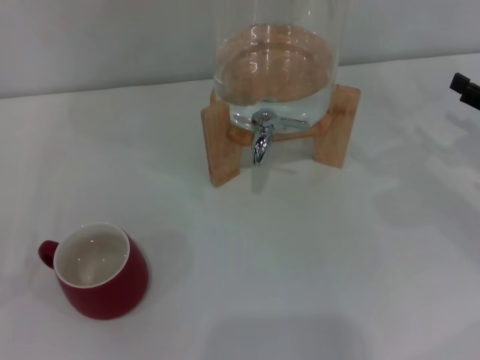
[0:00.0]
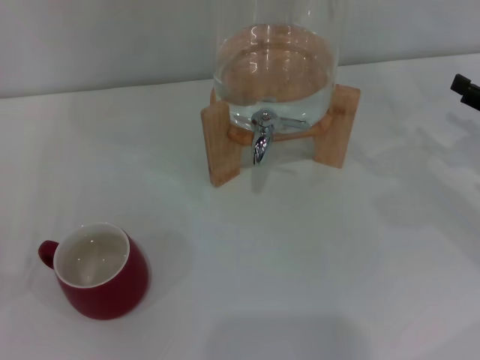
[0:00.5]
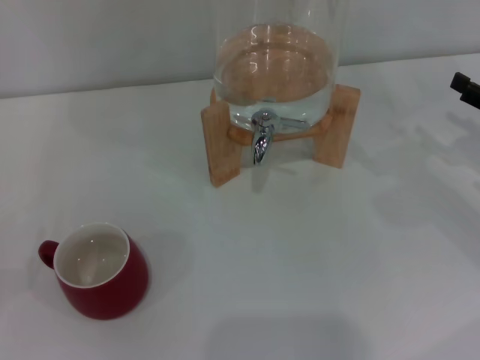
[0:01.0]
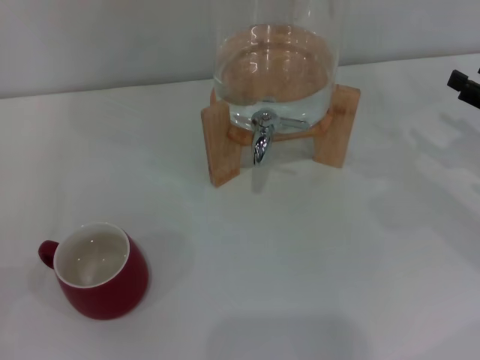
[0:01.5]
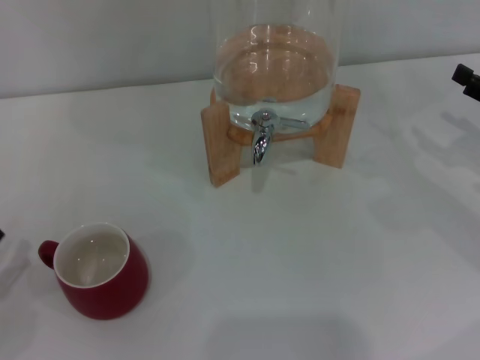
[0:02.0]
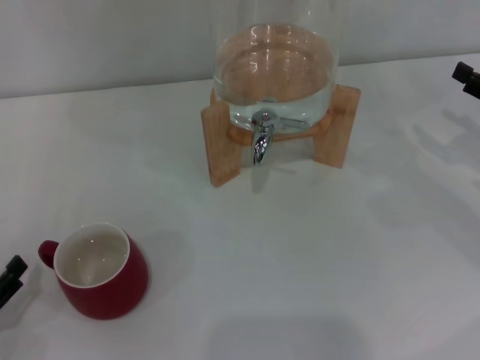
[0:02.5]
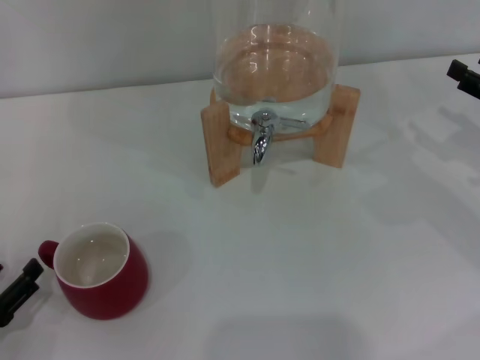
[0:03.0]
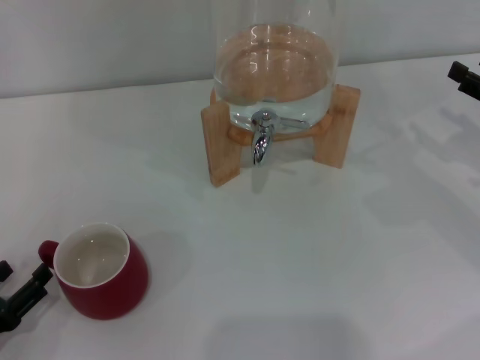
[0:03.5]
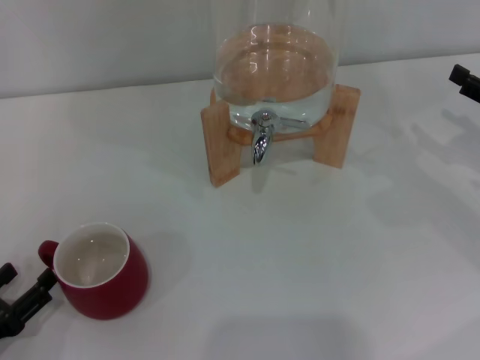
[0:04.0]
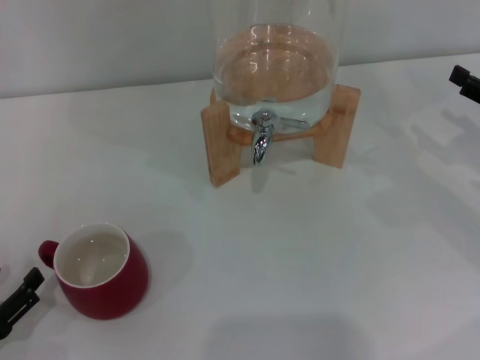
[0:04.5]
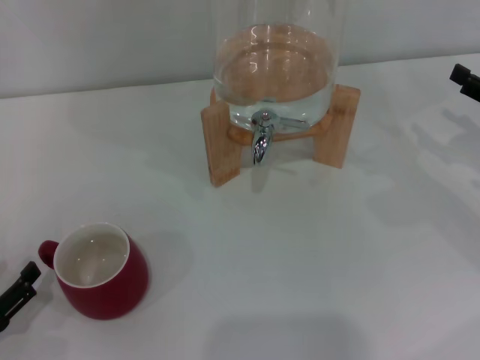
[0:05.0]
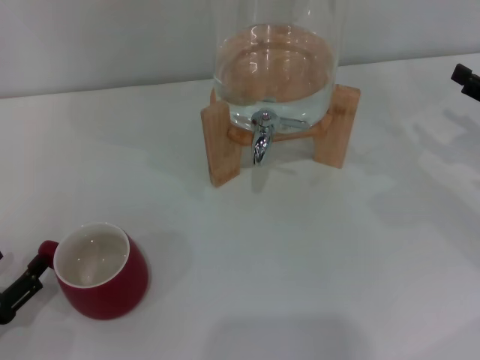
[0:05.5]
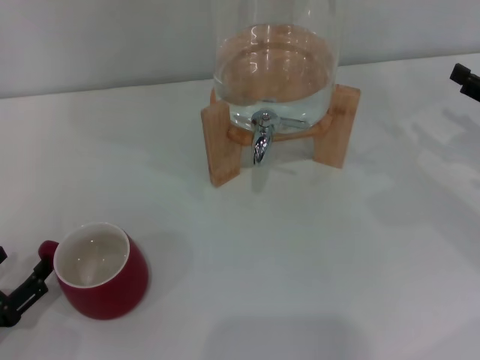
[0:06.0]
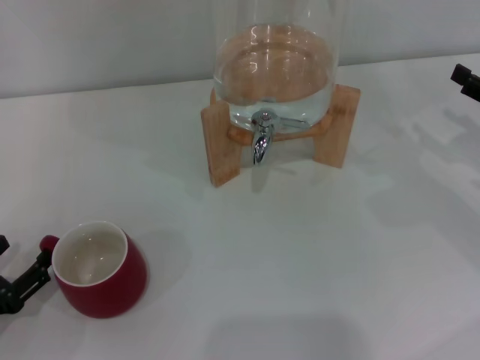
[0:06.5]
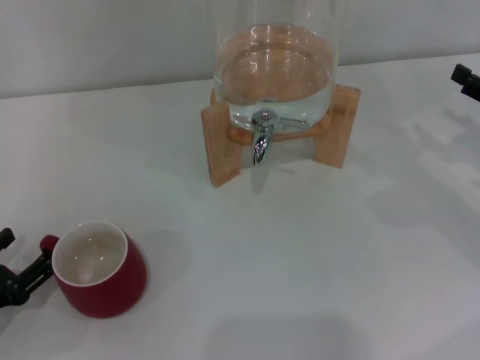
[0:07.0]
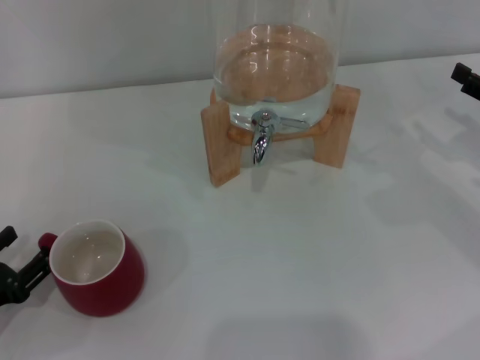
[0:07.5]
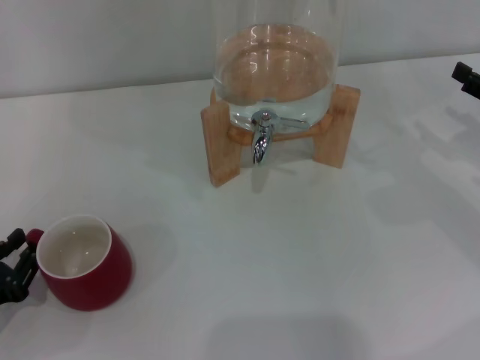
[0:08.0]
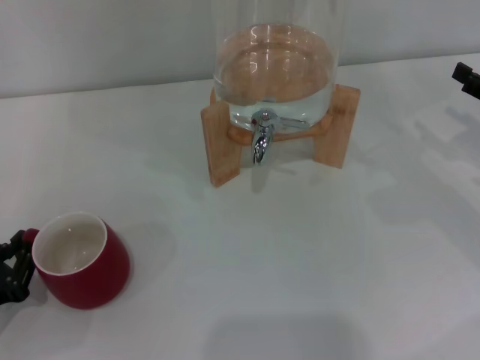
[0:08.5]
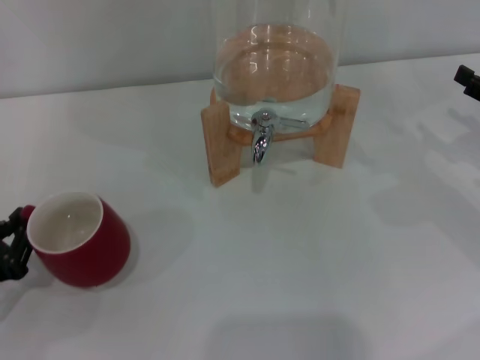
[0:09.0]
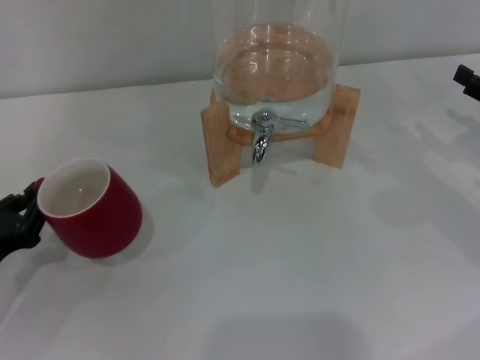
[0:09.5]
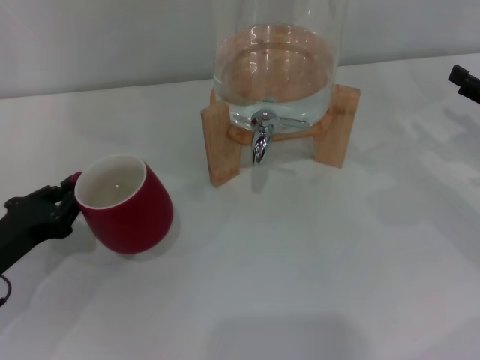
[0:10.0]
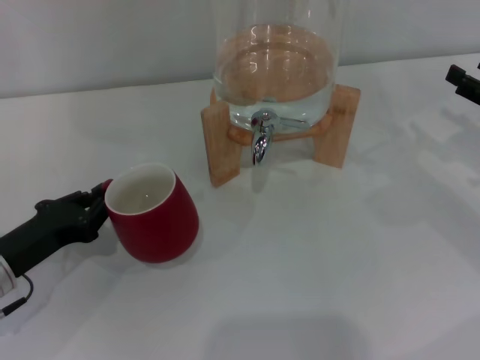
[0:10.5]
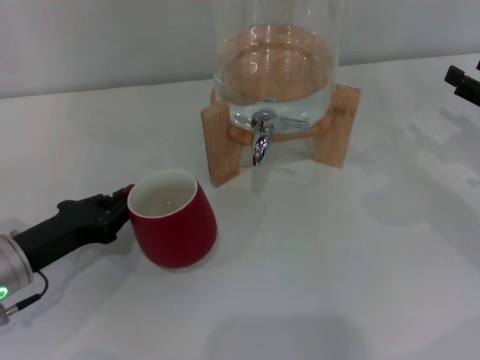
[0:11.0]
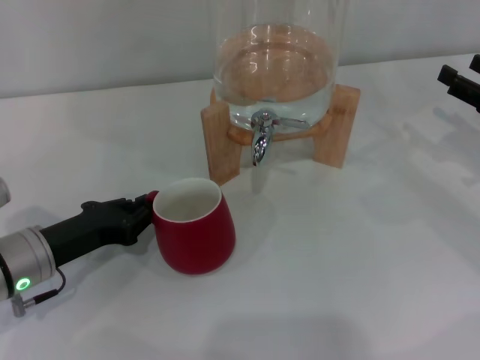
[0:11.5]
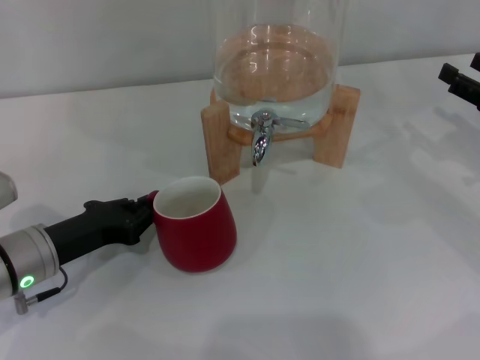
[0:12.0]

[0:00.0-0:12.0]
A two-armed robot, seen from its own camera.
Task of the whole recording: the left gripper pick up the red cup and place it horizontally under the faucet, the right gripper turn on the faucet to fill the cup, and then turn off the faucet.
0:02.0 to 0:04.0: The grippers move only a little.
0:04.0 to 0:06.0: There are only small adjustments of the grippers.
0:06.0 to 0:08.0: The left gripper closes up.
0:08.0 to 0:10.0: The left gripper goes about 5 cm forward, and closes its fingers.
0:10.0 to 0:12.0: The left gripper shifts some 5 cm to the right.

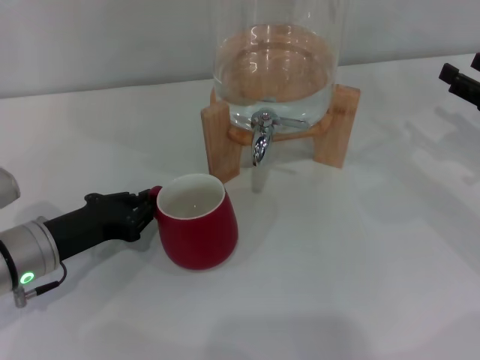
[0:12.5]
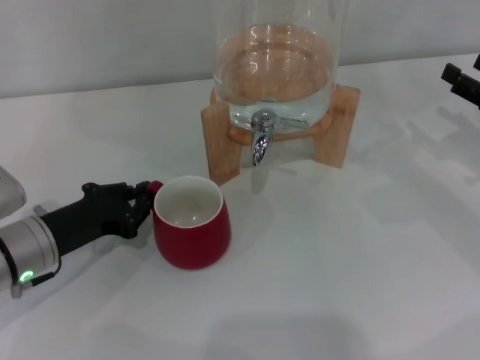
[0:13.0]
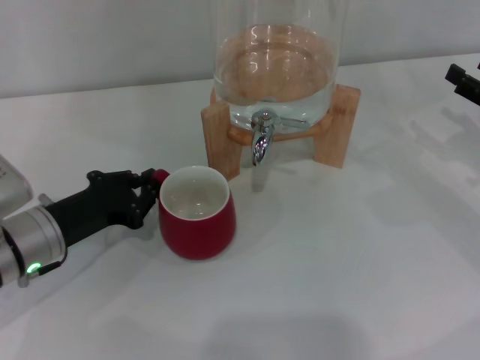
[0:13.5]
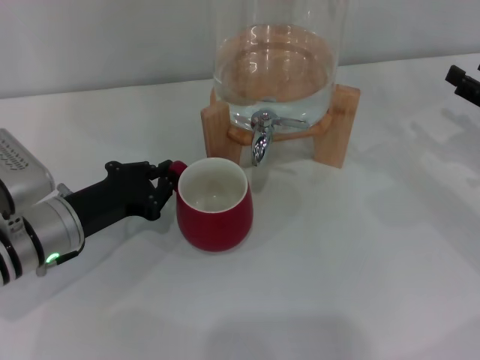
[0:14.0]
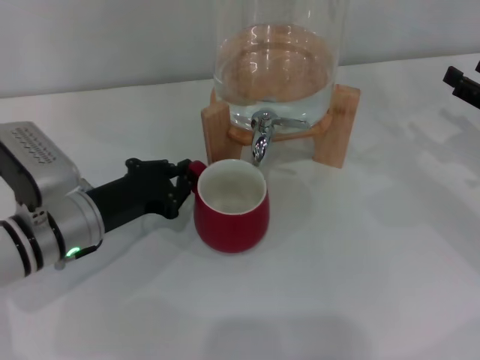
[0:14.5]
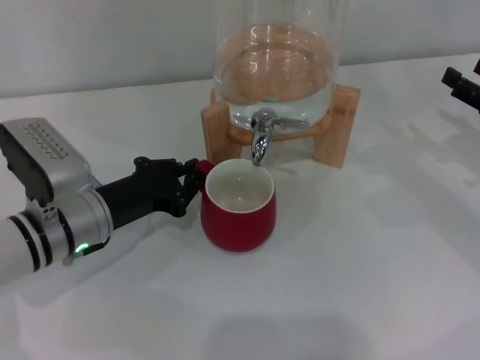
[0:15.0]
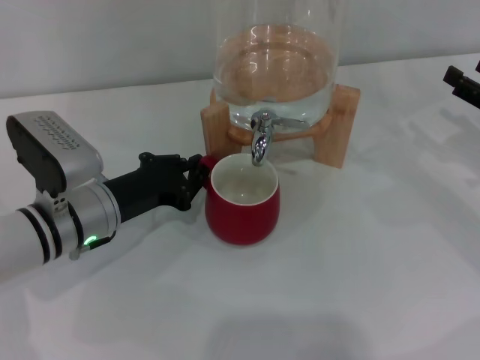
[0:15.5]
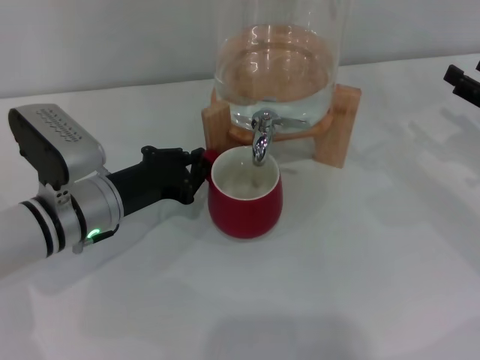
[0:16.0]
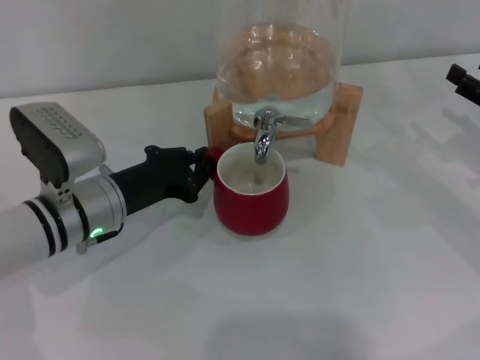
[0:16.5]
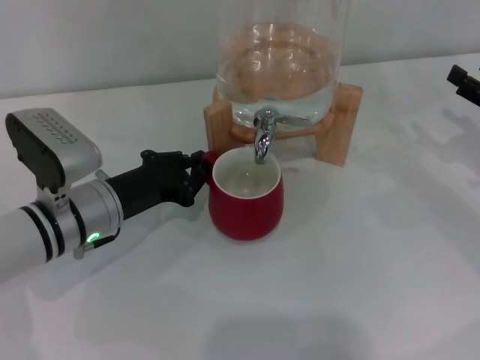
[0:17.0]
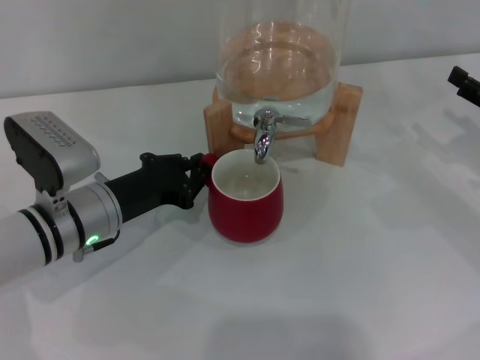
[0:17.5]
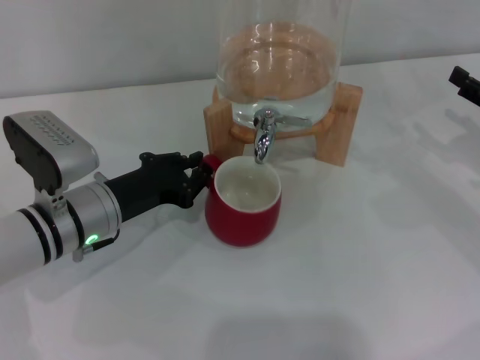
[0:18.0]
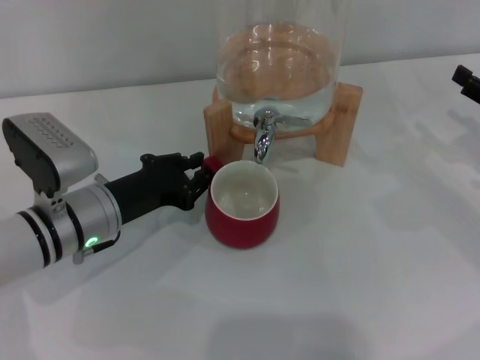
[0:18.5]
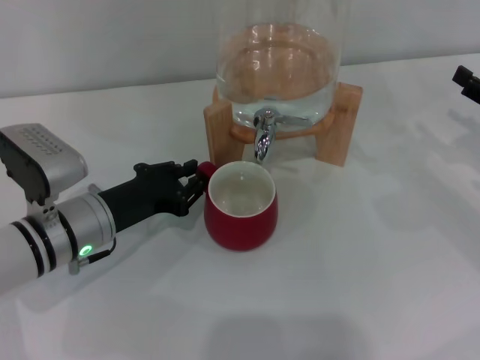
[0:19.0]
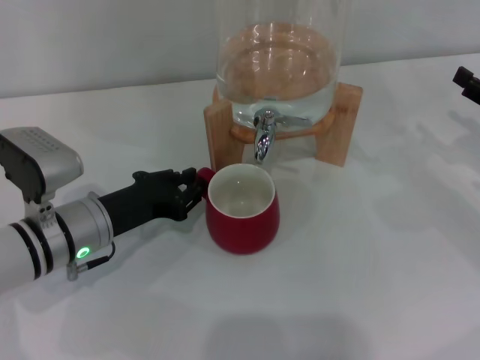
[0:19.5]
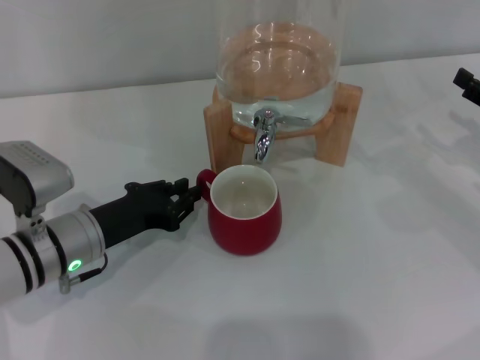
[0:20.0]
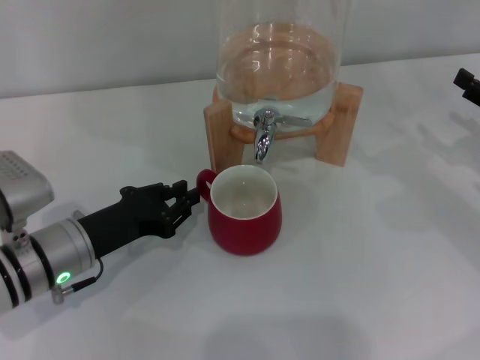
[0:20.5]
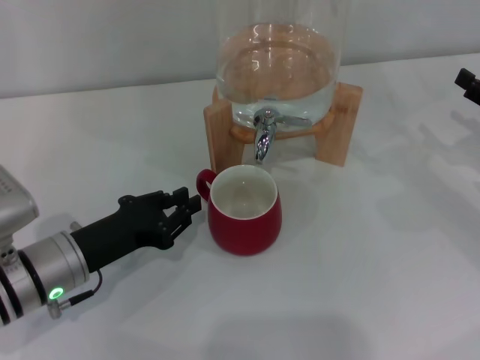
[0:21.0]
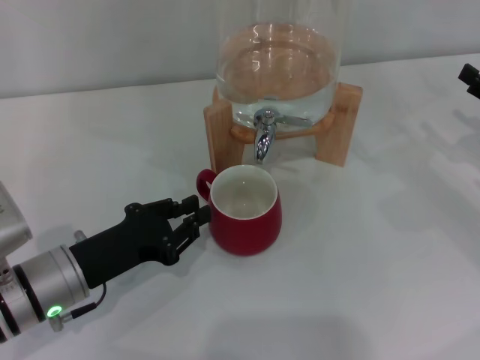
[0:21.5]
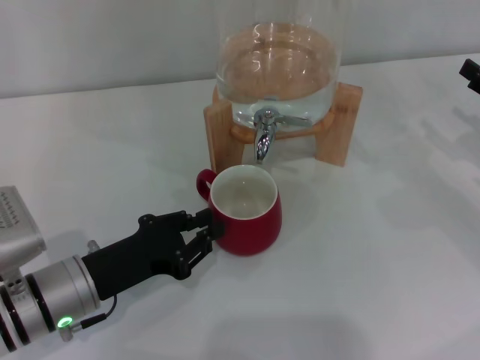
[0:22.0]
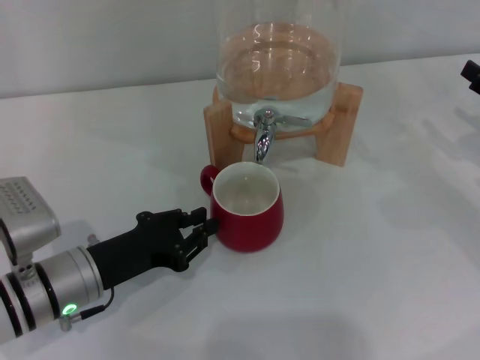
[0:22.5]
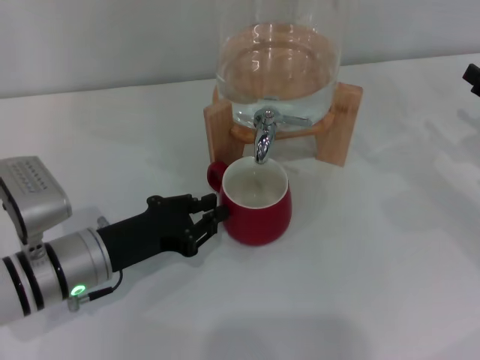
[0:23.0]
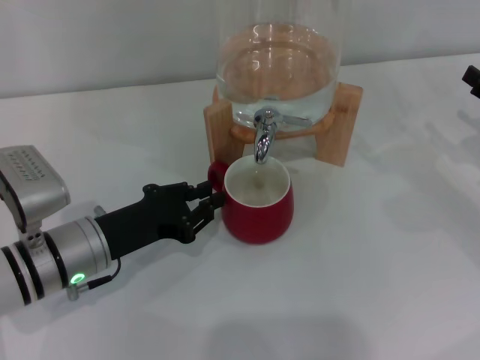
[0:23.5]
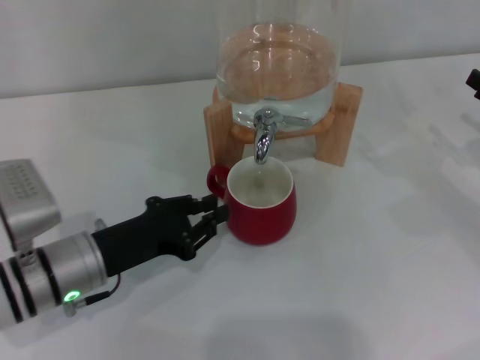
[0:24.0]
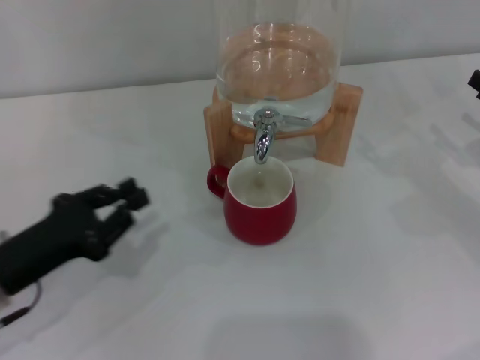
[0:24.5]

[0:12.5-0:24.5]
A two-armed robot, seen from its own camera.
Task of the whole recording: the left gripper pick up the red cup and place it horizontally under the faucet, the right gripper turn on the faucet to fill the cup, and then turn off the faucet.
Step, 0:12.5 to 0:20.5: Move the cup beneath the water dispenser nozzle with the left gripper.
0:12.5 to 0:14.5: The left gripper moves about 5 cm.
0:14.5 to 0:16.5: The grippers move only a little.
0:16.5 to 0:18.5: Both grippers stay put.
0:18.5 to 0:20.5: The grippers stay close to where they were, moving slightly.
0:20.5 to 0:22.5: The grippers make only small movements.
0:22.5 to 0:24.5: The left gripper shifts approximately 5 cm to the left.

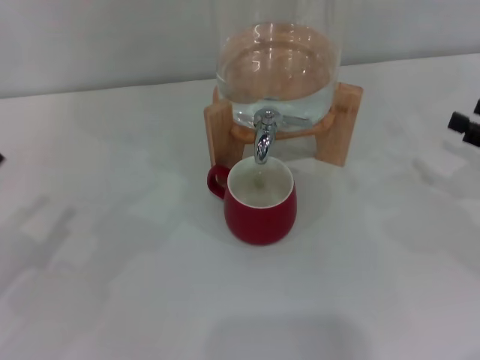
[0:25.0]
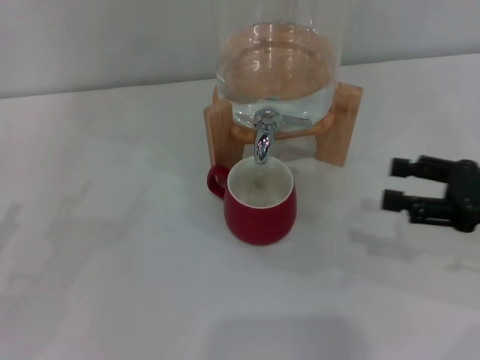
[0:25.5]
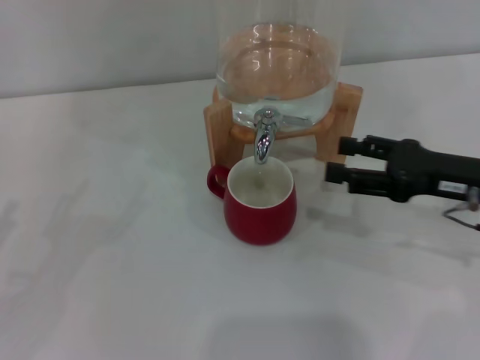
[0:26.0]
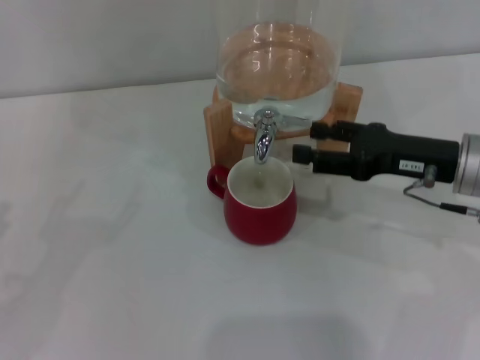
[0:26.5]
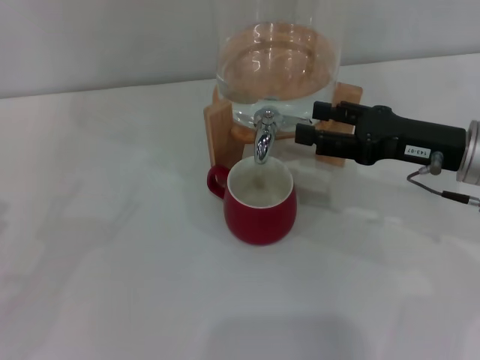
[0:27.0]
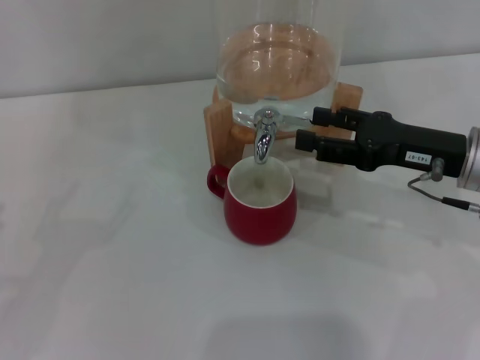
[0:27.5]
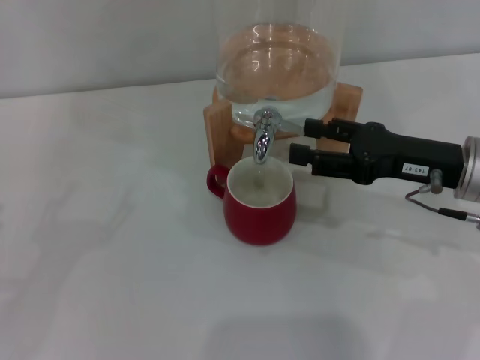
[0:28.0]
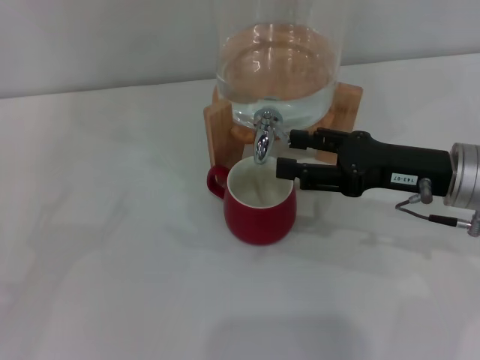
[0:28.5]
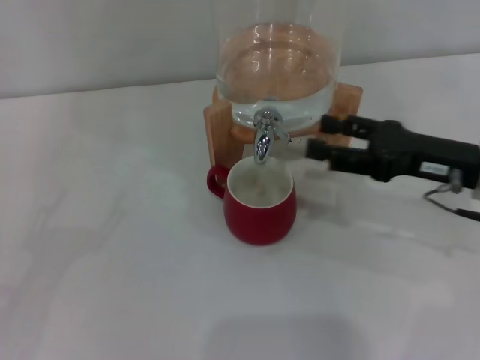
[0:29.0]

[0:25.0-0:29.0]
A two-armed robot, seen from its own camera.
Task of the whole recording: the left gripper pick up the red cup and place it horizontally under the faucet, the right gripper turn on the faucet to fill the cup, and then turn off the faucet.
Step, 0:25.0 to 0:28.5: Open the dispenser valve and fill the cup with water with the right gripper.
0:25.0 to 0:27.0: The right gripper moves to the left, some 15 cm; the left gripper opens up.
0:27.0 to 0:29.0: The grippers stay close to where they were, moving slightly.
